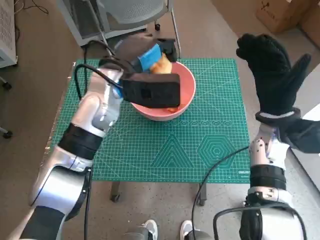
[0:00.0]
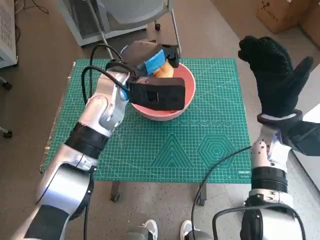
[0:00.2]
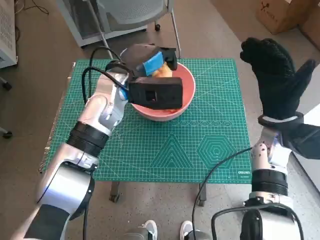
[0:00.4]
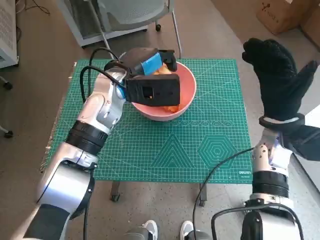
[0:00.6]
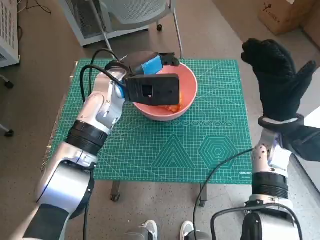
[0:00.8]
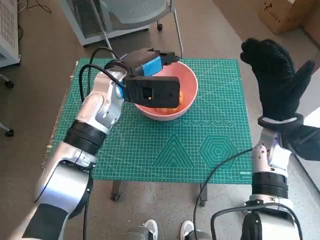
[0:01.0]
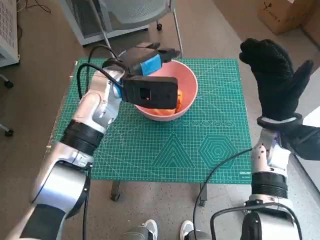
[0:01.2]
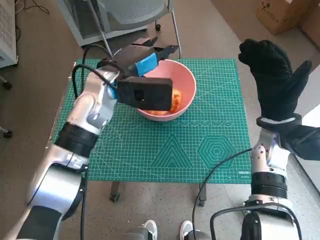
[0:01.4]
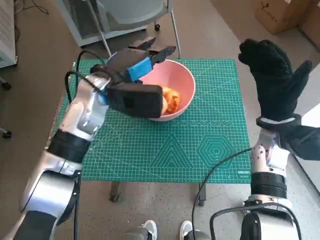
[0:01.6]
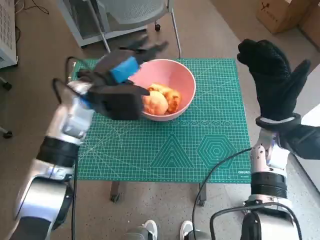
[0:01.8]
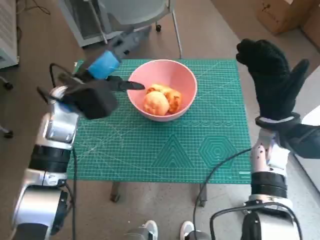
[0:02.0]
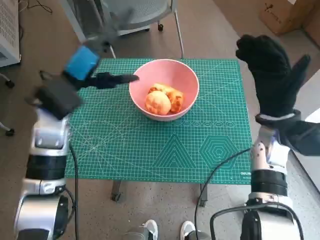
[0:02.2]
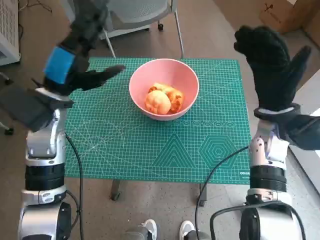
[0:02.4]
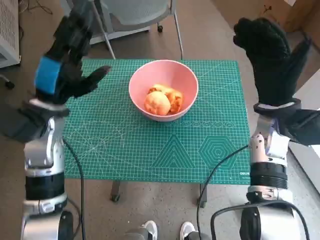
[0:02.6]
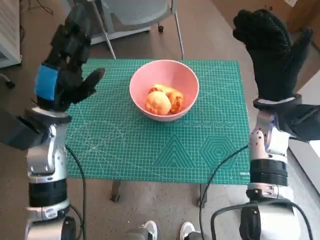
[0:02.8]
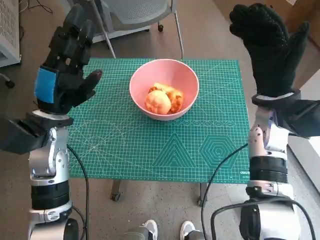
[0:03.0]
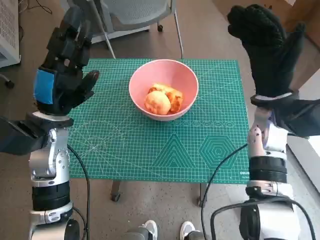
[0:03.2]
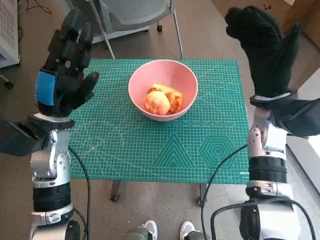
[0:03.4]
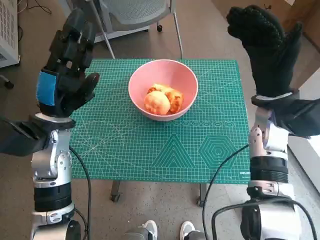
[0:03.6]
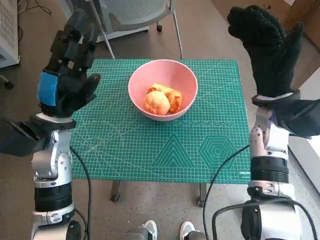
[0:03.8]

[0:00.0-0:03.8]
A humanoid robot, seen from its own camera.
0:00.0 to 0:01.2: The hands stay close to where they were, moving slightly.
0:01.2 to 0:02.6: The left hand is displaced to the left and backward by some 15 cm.

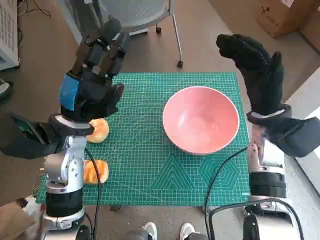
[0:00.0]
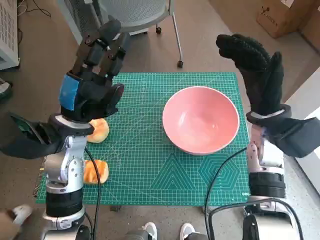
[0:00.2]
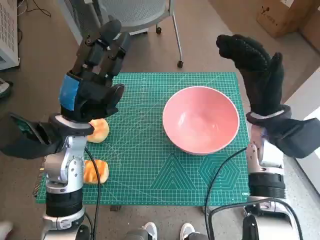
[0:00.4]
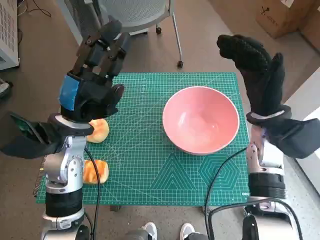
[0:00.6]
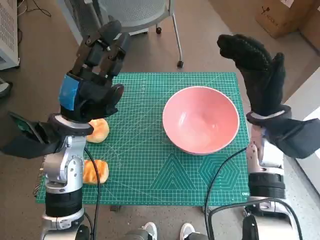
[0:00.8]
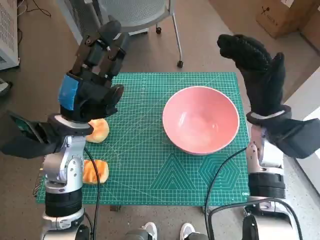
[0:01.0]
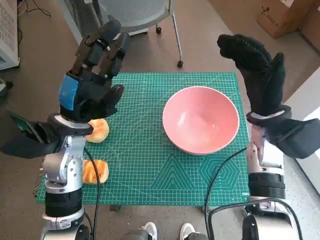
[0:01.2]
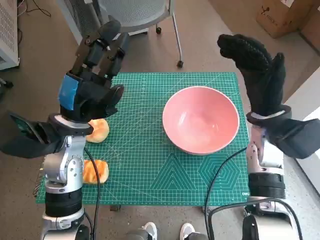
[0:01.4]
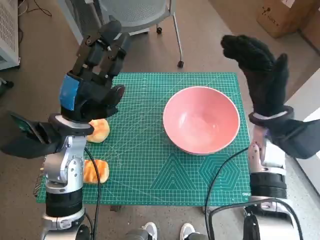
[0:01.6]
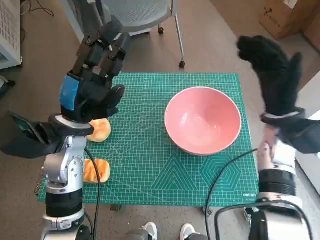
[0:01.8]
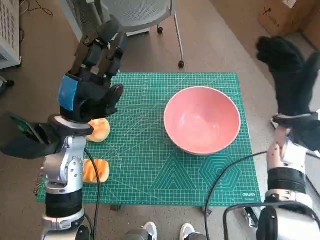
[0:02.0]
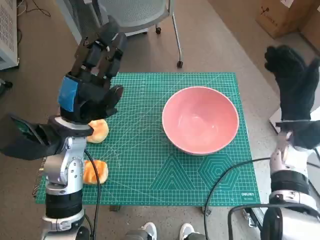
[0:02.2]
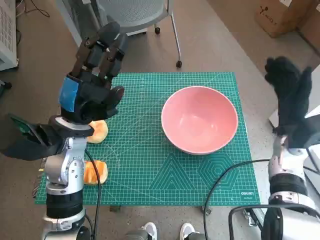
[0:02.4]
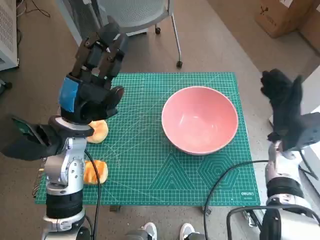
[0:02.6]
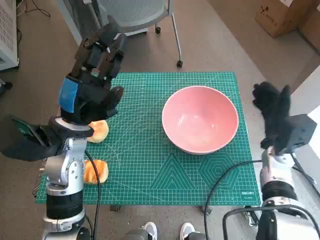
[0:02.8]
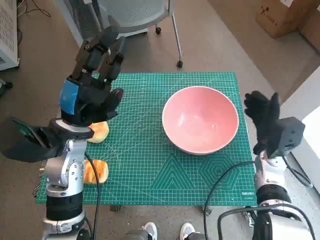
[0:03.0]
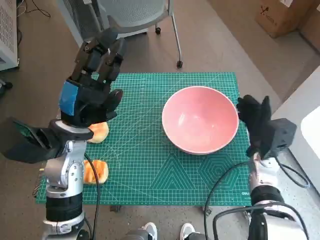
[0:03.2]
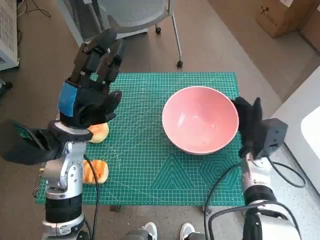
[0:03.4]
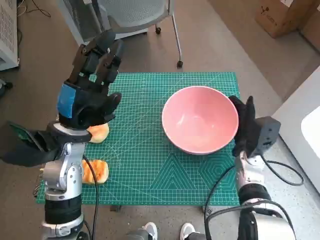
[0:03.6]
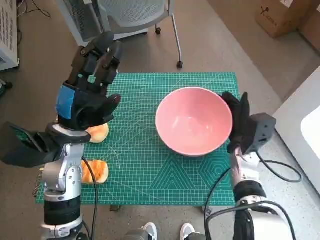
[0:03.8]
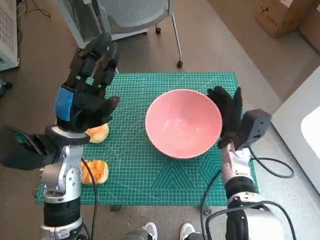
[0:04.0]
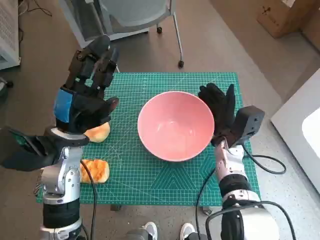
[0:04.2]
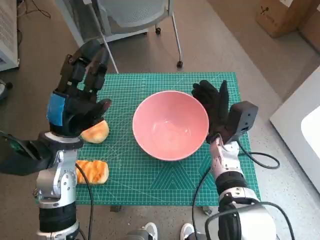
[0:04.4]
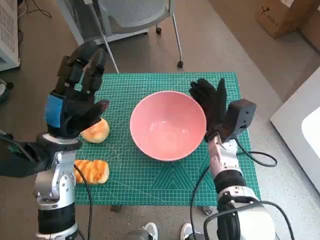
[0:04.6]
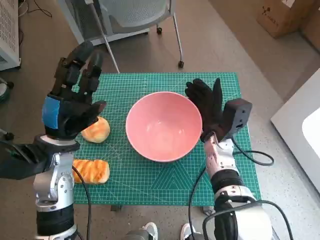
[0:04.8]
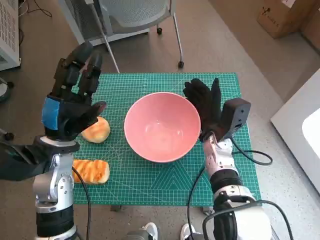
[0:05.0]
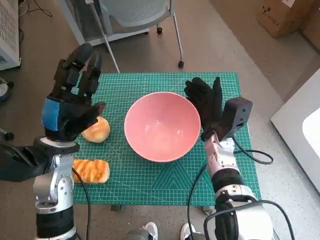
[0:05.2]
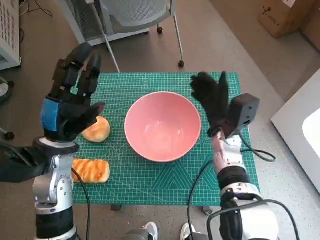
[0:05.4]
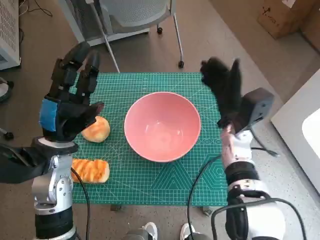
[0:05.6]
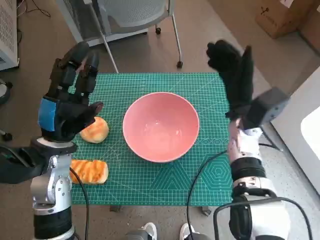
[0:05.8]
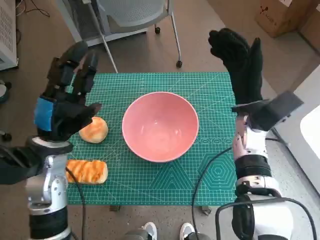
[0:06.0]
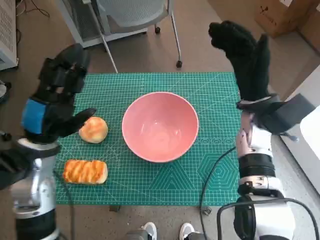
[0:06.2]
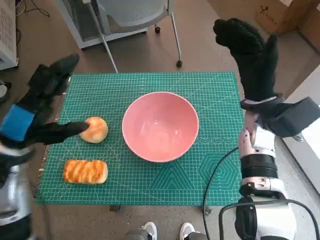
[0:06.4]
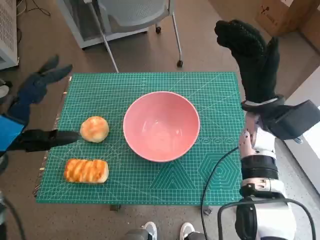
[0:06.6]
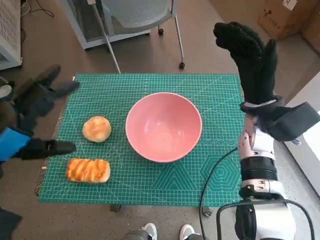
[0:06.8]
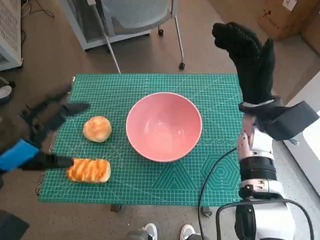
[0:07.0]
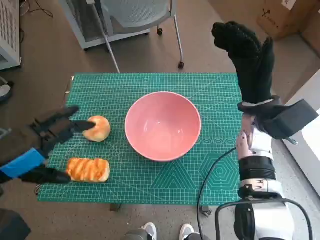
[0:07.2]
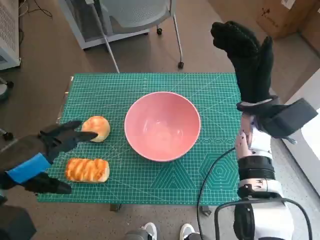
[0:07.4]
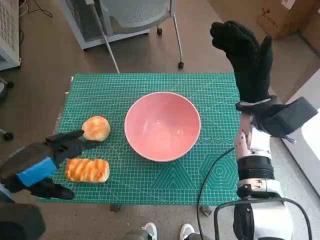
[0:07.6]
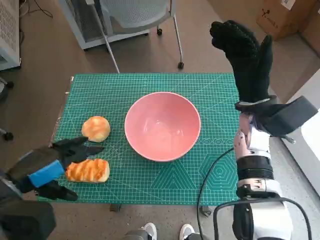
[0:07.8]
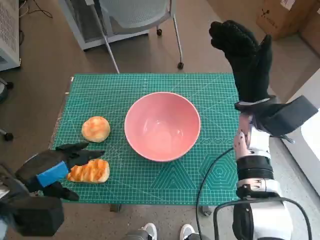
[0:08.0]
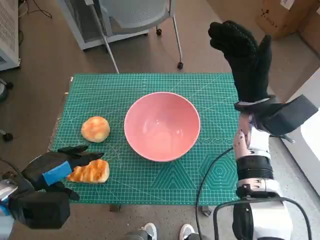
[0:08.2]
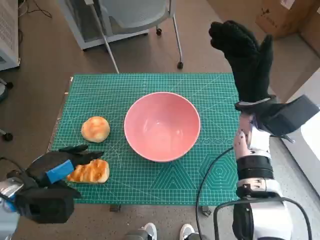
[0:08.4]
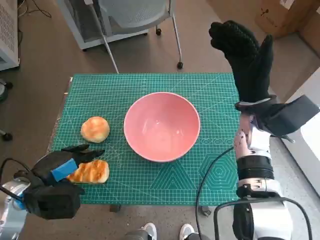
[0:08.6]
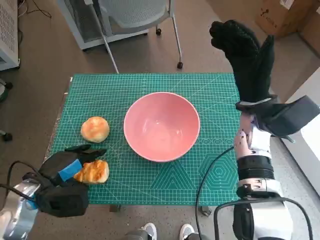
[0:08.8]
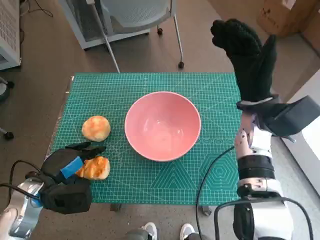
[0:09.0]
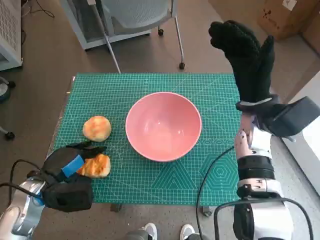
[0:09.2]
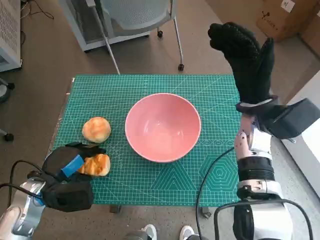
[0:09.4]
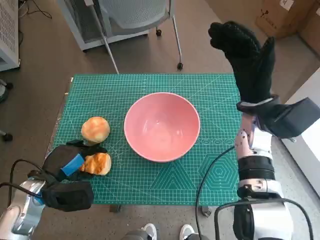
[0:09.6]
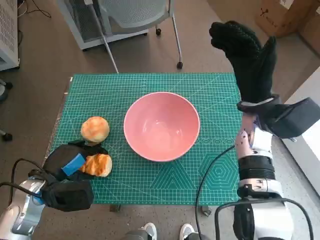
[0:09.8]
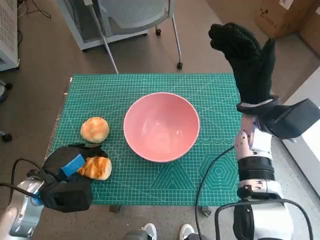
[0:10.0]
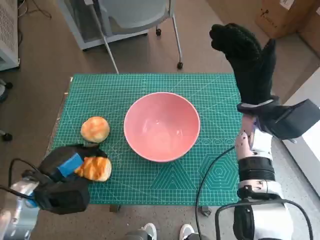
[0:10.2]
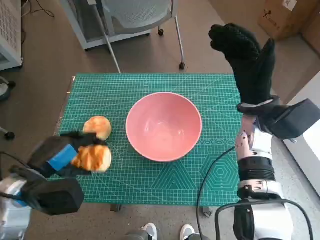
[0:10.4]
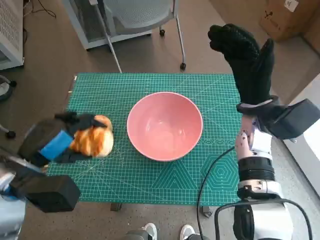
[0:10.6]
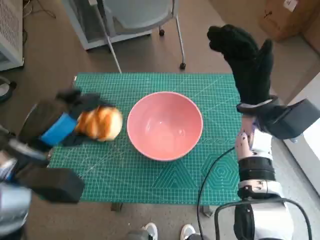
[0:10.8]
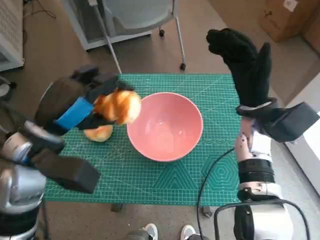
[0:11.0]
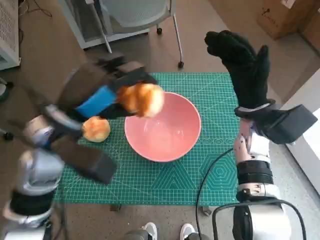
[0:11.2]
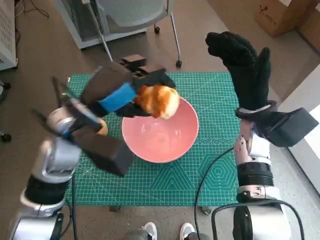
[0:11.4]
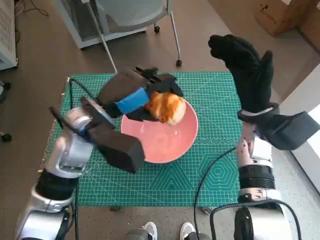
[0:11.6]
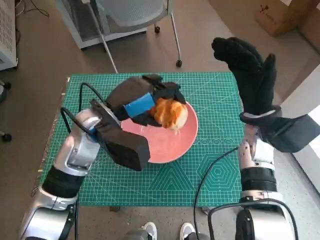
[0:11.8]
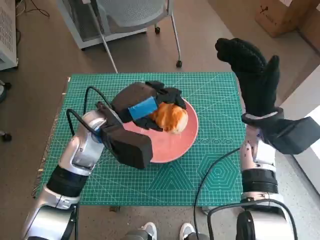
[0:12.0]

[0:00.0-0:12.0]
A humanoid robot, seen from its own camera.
Step, 0:00.0 to 0:05.2: Move the pink bowl to the center of table with right hand.
Step, 0:05.4 to 0:09.2: Grasp the long bread with left hand.
0:01.6 to 0:03.0: The right hand moves downward, roughly 10 cm.
0:03.0 to 0:04.4: The right hand heads to the left, covering some 10 cm.
0:04.4 to 0:06.0: The right hand travels upward by roughly 10 cm.
0:06.0 to 0:07.6: The left hand moves backward and to the left, roughly 10 cm.
0:07.6 to 0:09.0: The left hand is displaced downward by about 10 cm.
0:09.0 to 0:10.4: The left hand goes roughly 5 cm upward.
0:10.4 to 0:12.0: The left hand heads to the right and forward, covering roughly 15 cm.

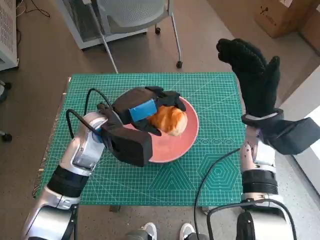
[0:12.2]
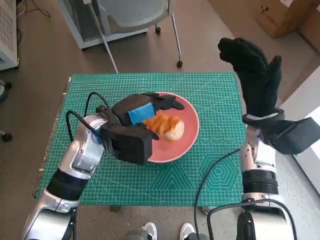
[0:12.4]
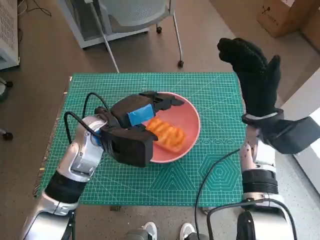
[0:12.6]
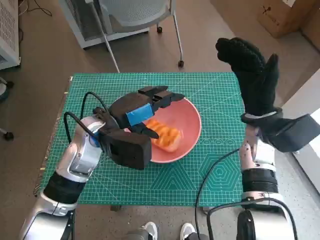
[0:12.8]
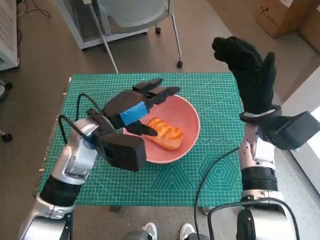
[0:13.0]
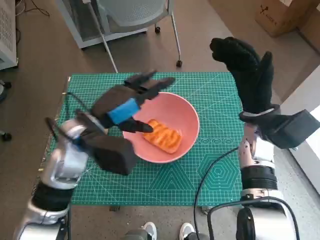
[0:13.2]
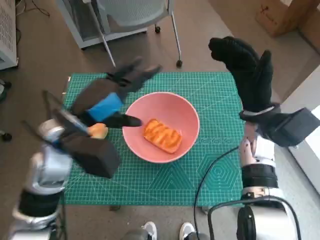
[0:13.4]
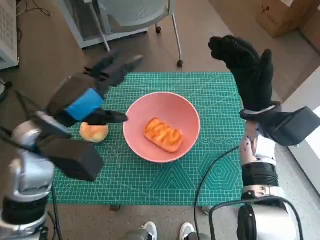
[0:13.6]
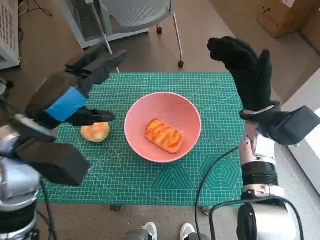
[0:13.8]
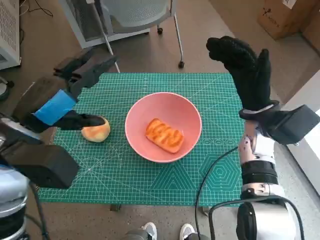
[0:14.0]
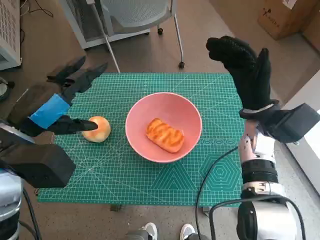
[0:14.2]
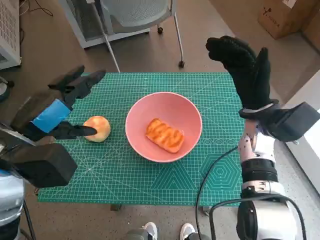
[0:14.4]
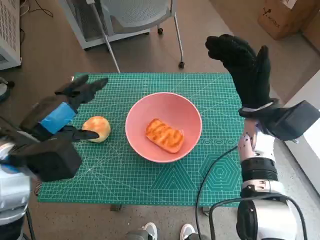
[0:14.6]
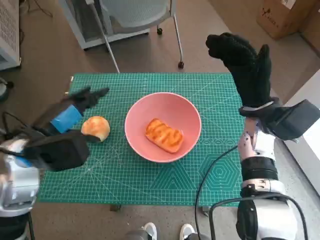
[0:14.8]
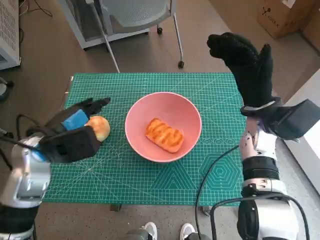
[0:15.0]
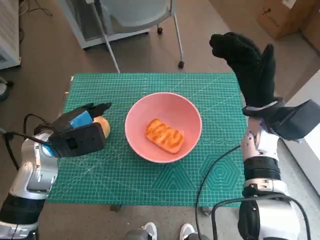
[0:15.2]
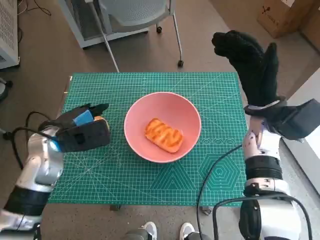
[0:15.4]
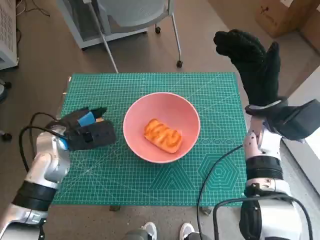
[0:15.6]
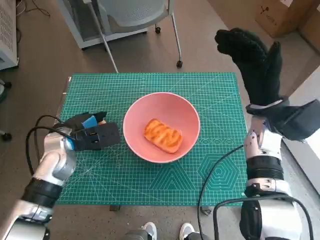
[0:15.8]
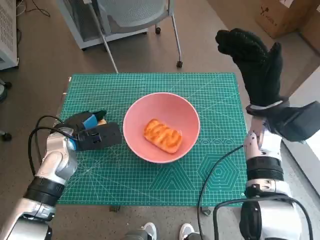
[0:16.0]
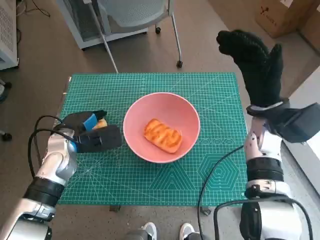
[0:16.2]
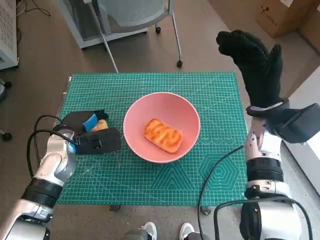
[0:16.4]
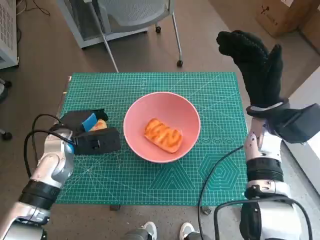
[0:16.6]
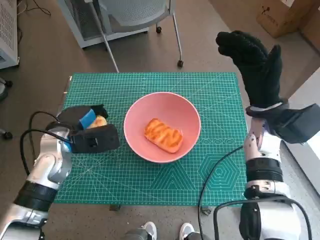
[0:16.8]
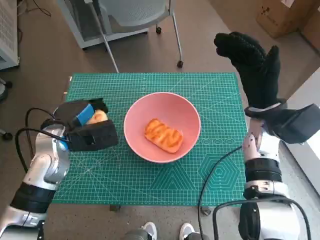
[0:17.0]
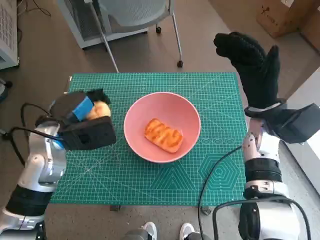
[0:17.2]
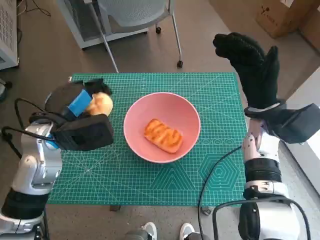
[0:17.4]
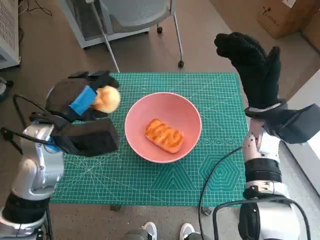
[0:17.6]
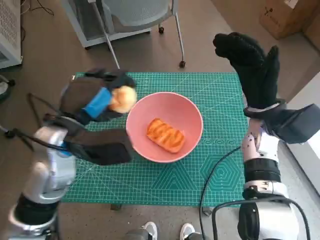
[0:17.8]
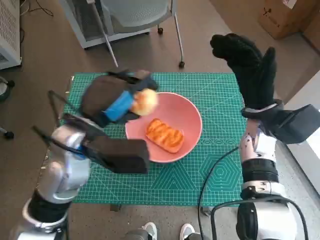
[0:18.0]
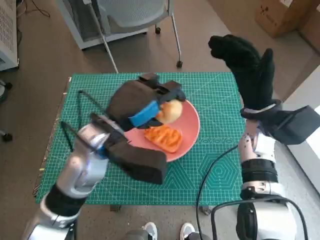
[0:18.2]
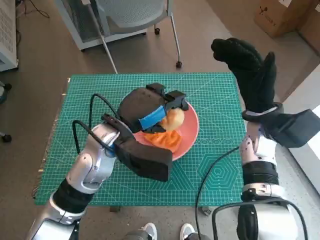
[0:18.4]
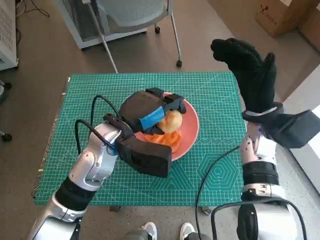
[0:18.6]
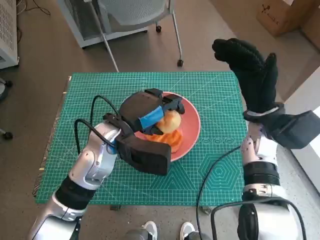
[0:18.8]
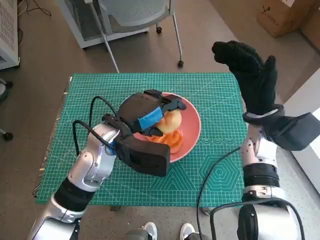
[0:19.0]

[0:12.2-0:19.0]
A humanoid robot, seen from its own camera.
Step, 0:12.8 to 0:16.4: Grasp the round bread with left hand.
0:12.2 to 0:13.6: The left hand shifts roughly 10 cm to the left and backward.
0:13.6 to 0:15.0: The left hand shifts by about 5 cm.
0:15.0 to 0:16.2: The left hand travels downward by approximately 5 cm.
0:16.2 to 0:17.6: The left hand shifts some 10 cm upward.
0:17.6 to 0:19.0: The left hand moves to the right, about 10 cm.
